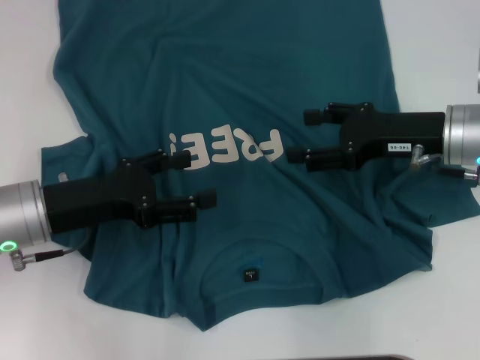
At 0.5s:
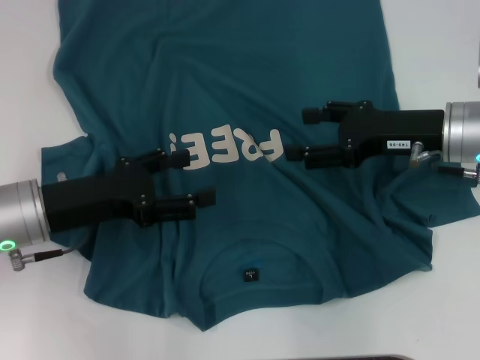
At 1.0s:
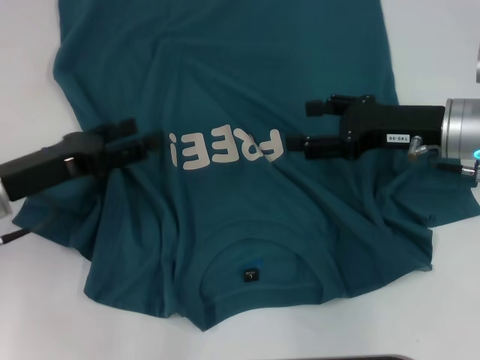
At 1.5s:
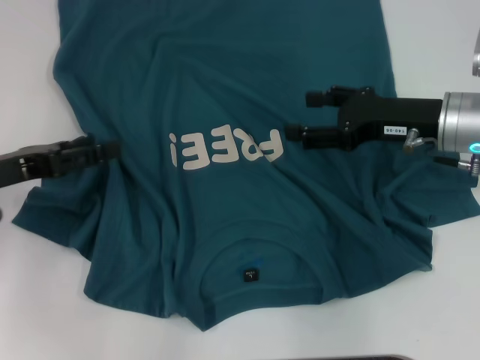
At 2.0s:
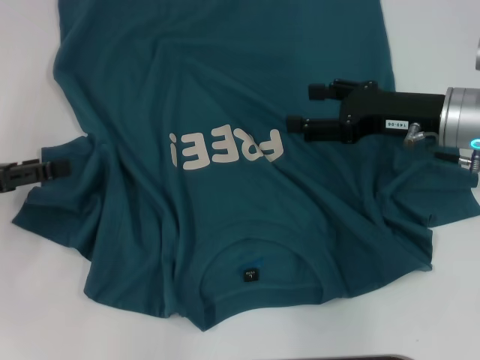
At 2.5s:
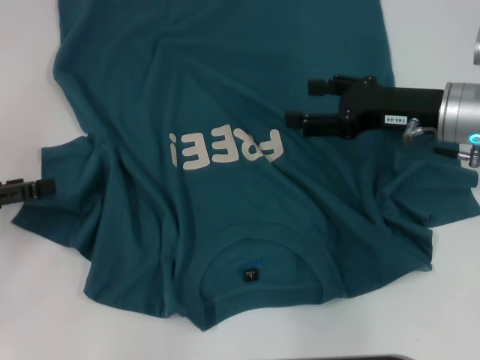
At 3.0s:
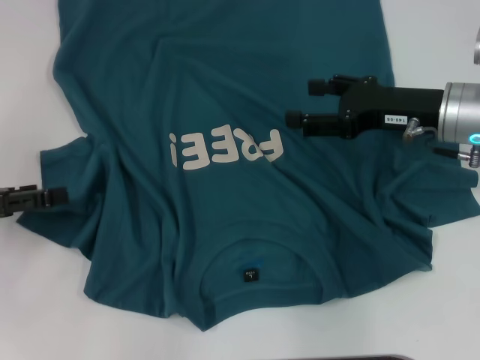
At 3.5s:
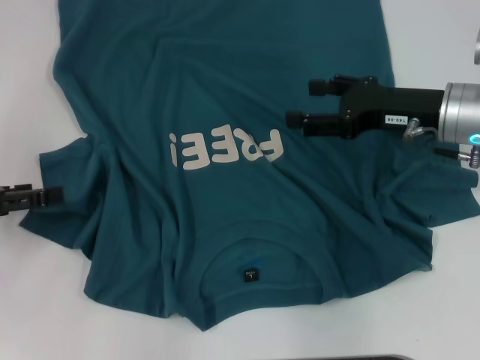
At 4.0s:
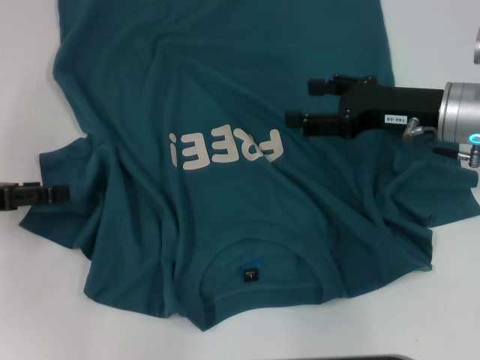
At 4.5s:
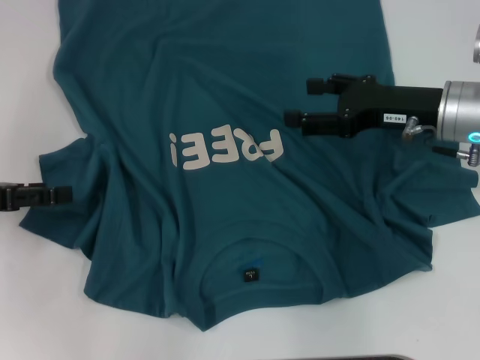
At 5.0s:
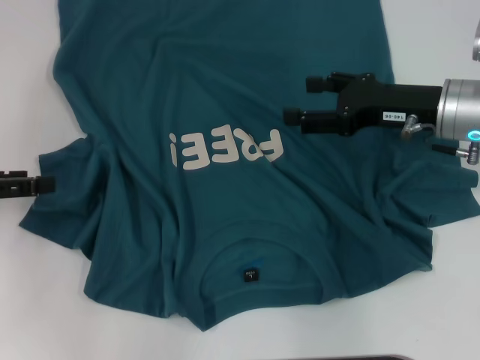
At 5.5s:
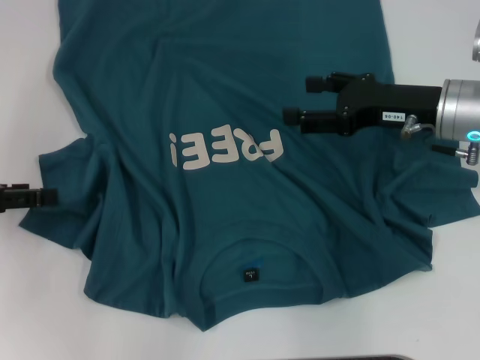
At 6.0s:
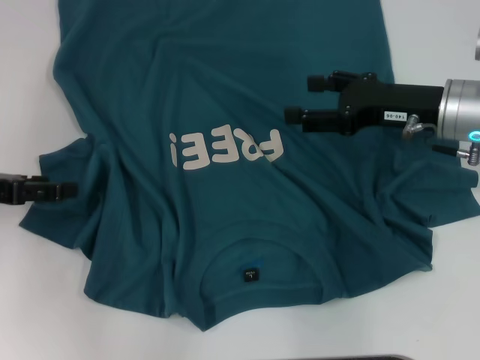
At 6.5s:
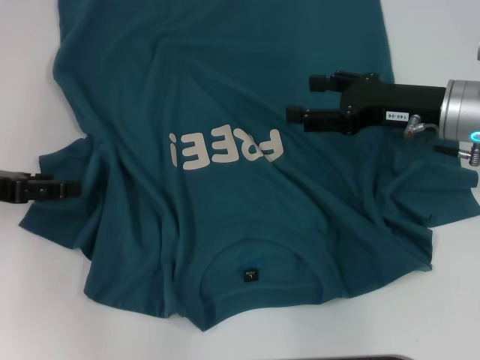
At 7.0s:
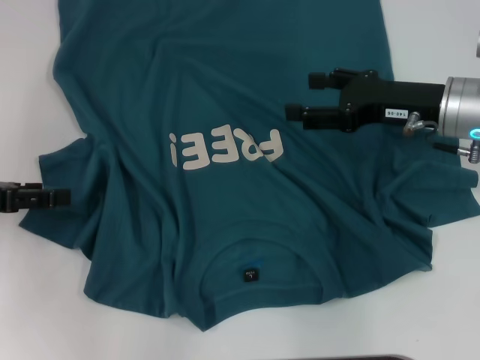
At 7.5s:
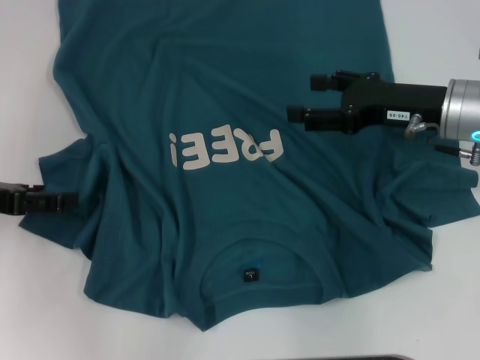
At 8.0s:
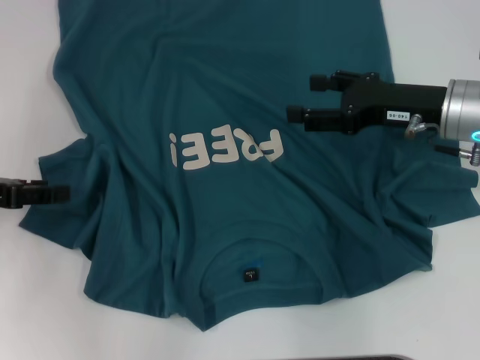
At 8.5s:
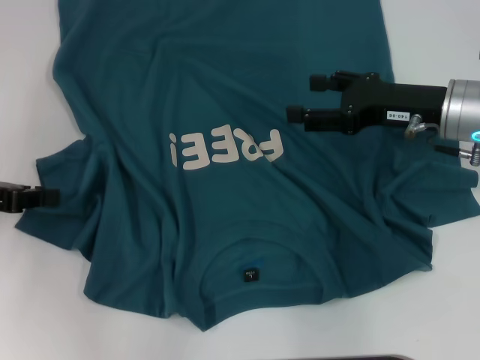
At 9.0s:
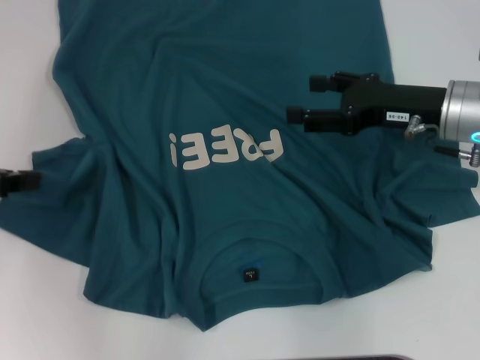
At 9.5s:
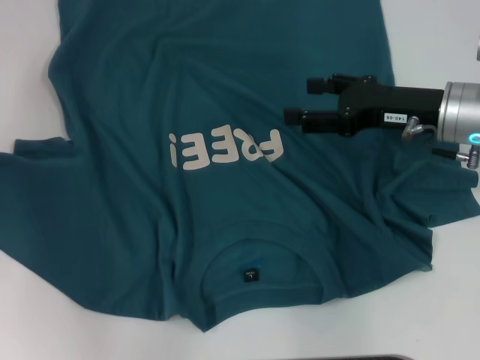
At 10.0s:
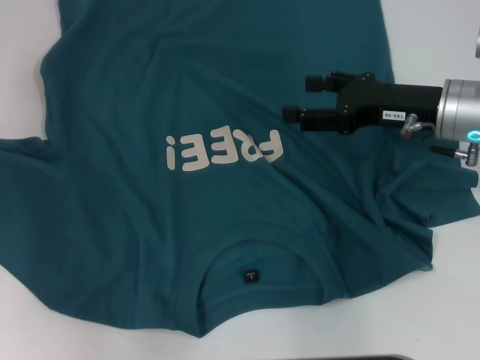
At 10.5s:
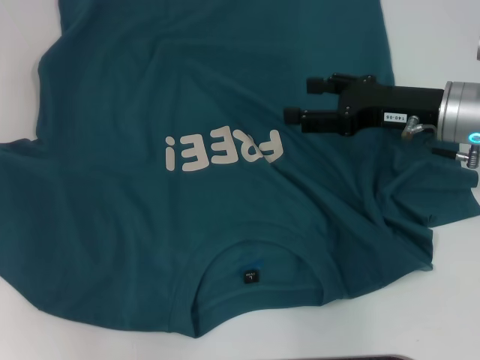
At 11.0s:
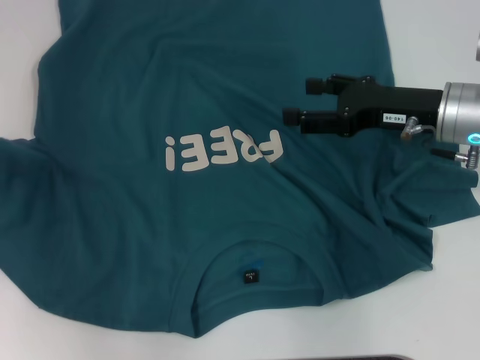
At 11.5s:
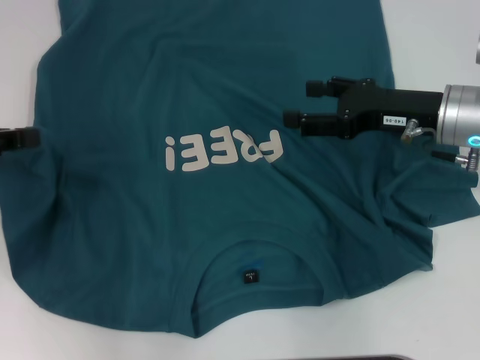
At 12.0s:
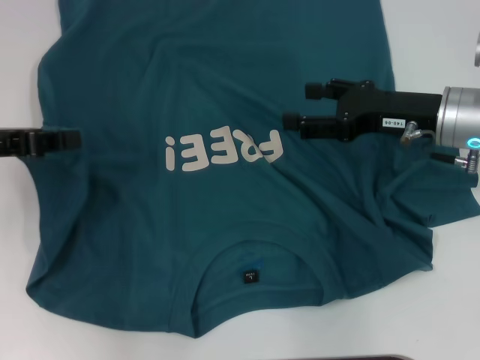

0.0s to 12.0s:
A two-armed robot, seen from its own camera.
0.0s to 2.0s: The left gripper heads to the left, covering approximately 10 cm.
2.0s to 6.0s: There are only small adjustments of the grippers.
6.0s to 8.0s: The two grippers keep their place.
8.0s to 10.0s: The left gripper changes place by roughly 5 cm, and closes.
10.0s to 12.0s: The left gripper shifts roughly 10 cm to the right.

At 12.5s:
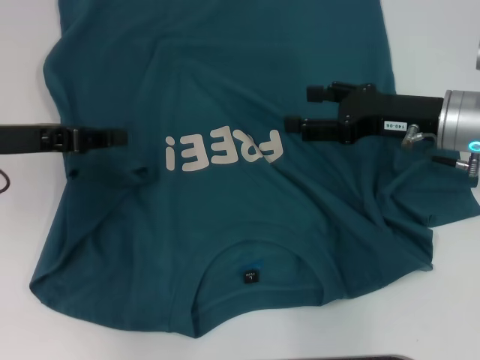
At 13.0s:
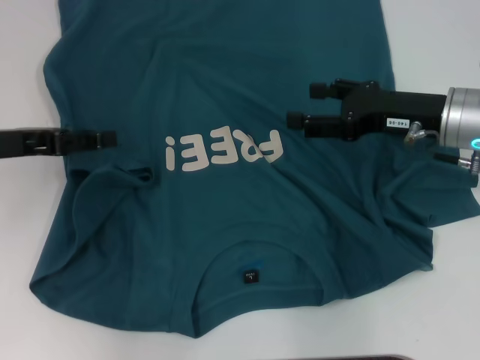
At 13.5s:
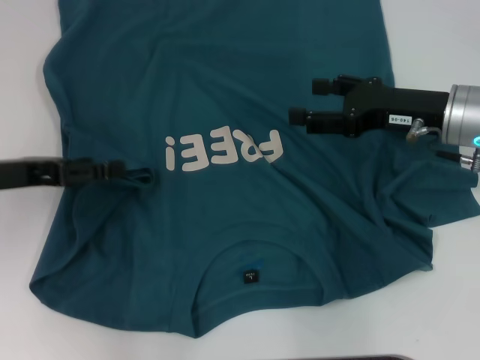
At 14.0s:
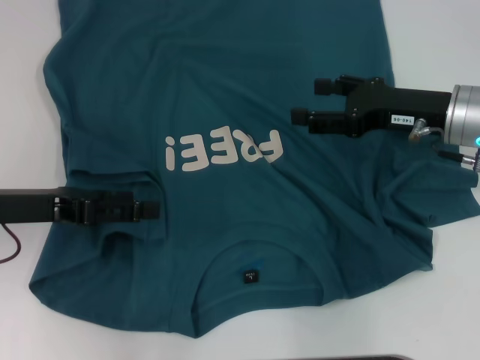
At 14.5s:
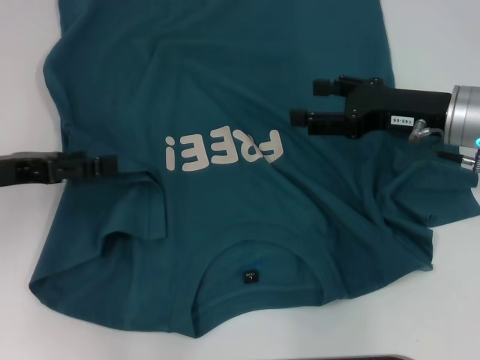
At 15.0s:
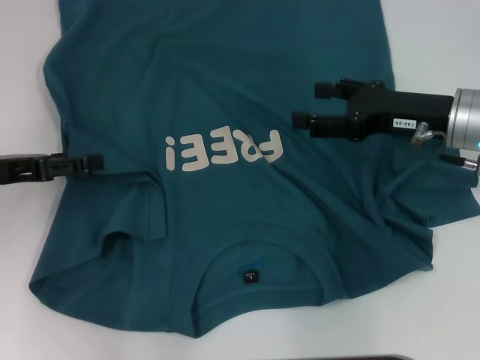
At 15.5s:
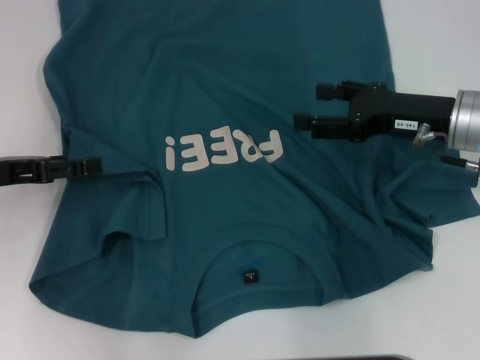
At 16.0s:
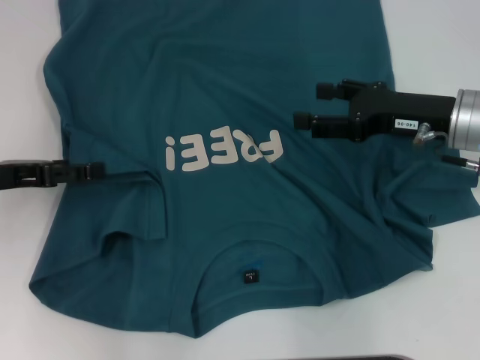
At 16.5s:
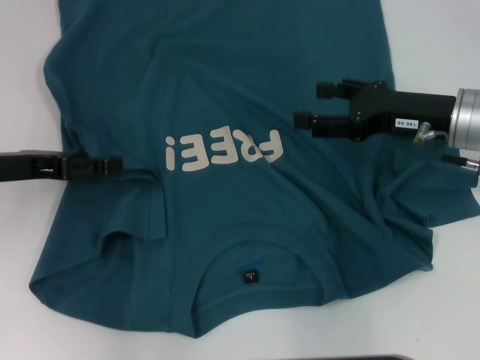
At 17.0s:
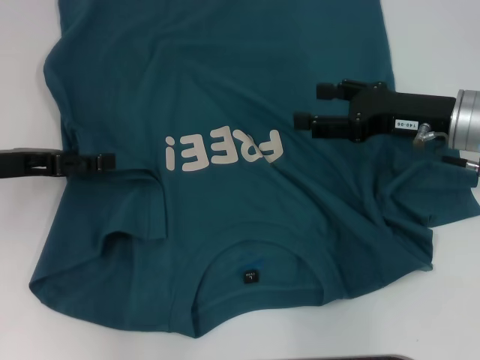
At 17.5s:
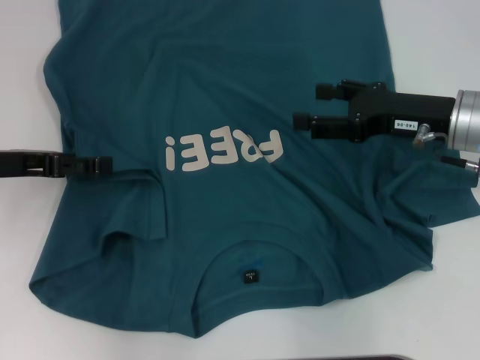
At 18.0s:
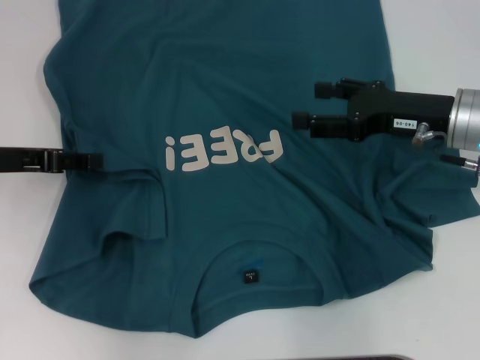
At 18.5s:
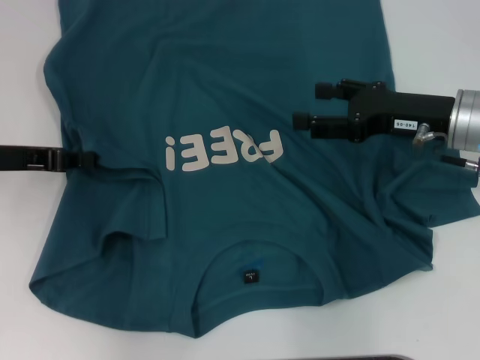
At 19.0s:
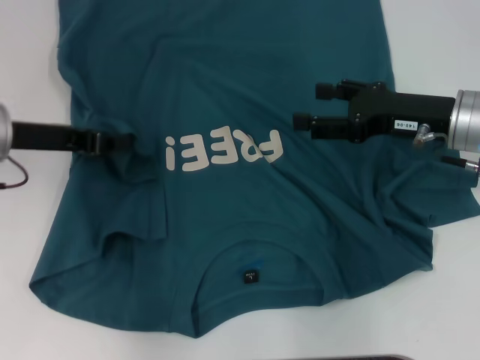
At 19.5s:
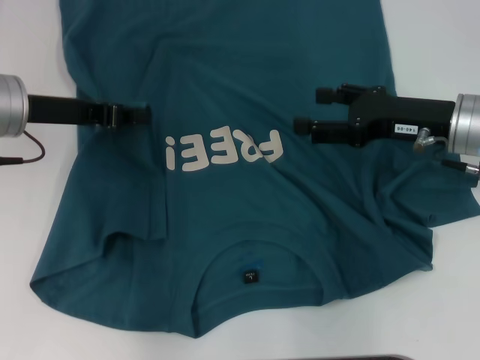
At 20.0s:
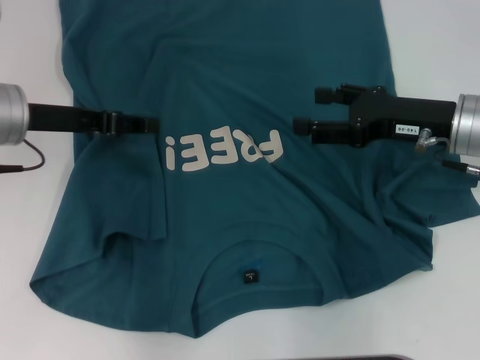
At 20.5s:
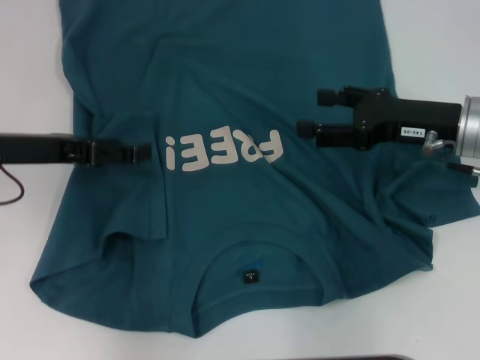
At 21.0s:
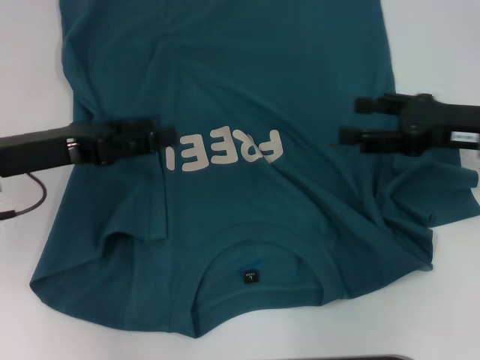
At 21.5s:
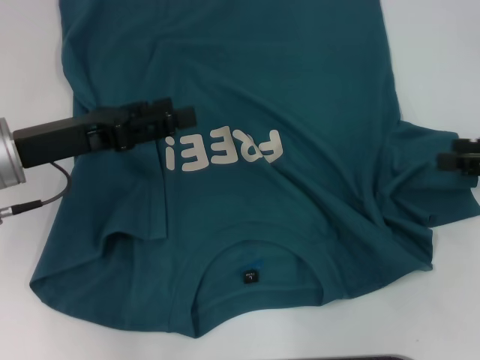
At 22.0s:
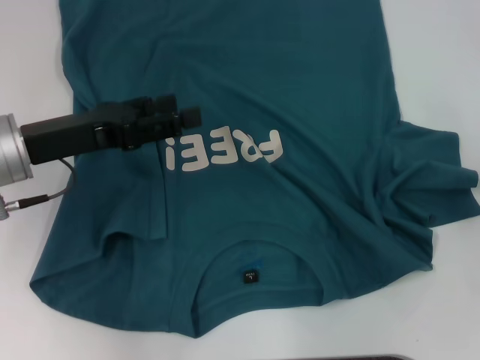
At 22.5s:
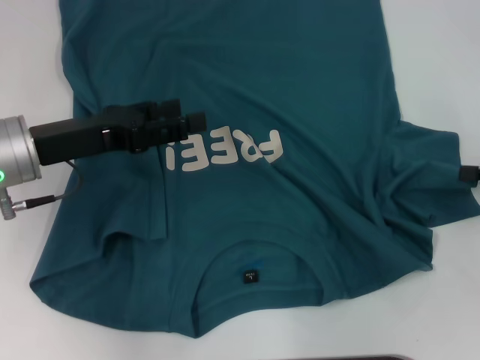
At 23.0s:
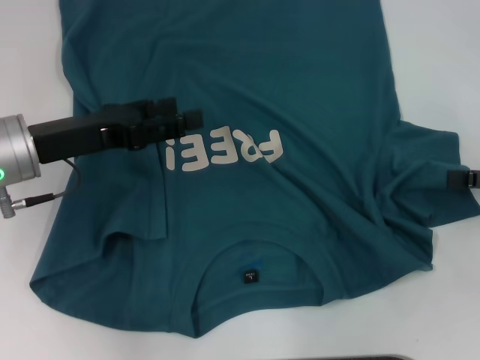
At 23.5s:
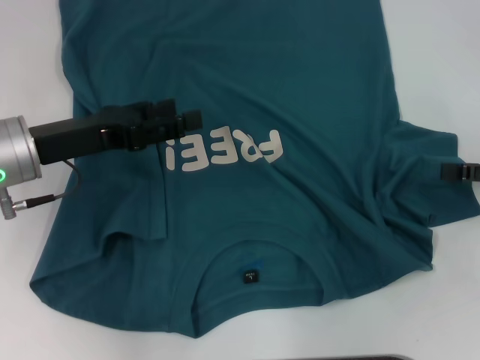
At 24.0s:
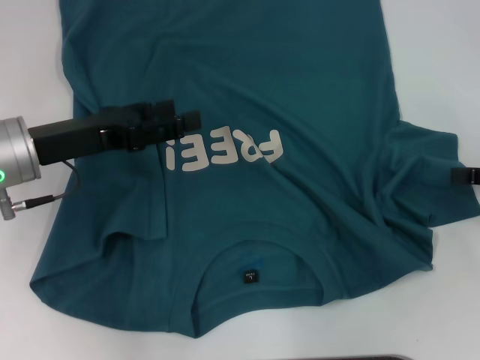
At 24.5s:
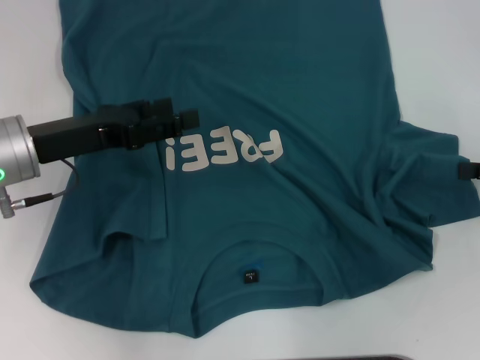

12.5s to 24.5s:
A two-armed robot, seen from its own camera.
Step, 12.5s to 20.5s: Fold the bottom left sleeve with your left hand.
12.5s to 14.5s: The left gripper opens up.
14.5s to 16.5s: The grippers make only small movements.
16.5s to 18.5s: The left gripper closes.
18.5s to 20.5s: The left gripper opens up.
20.5s to 22.5s: The right gripper shifts some 15 cm to the right and backward.

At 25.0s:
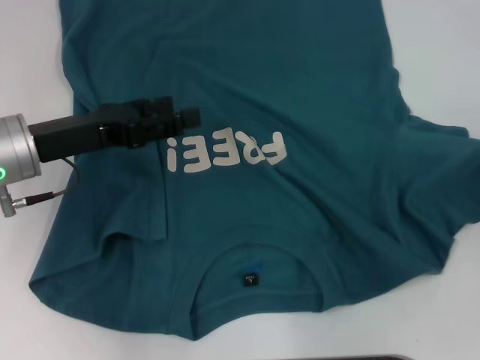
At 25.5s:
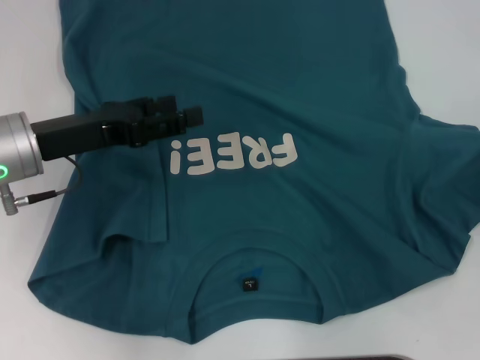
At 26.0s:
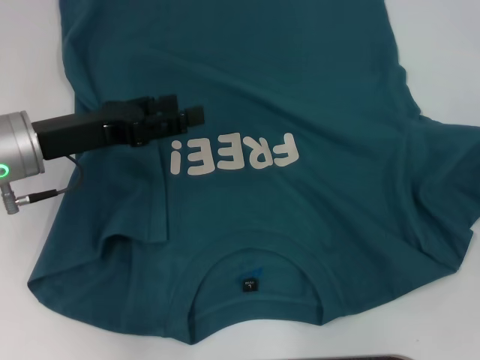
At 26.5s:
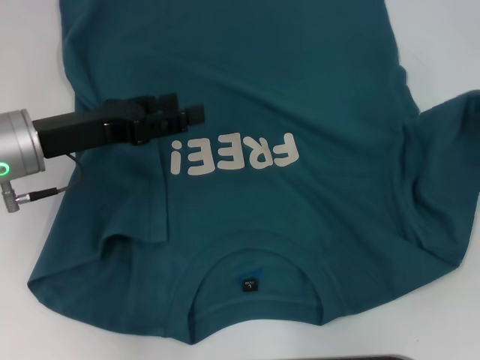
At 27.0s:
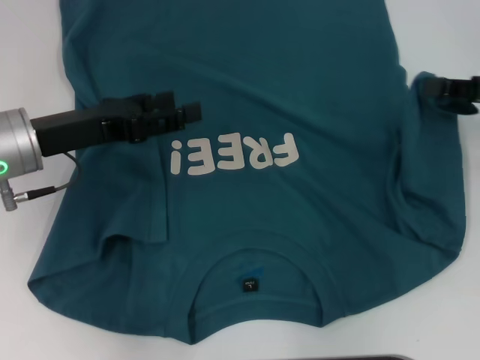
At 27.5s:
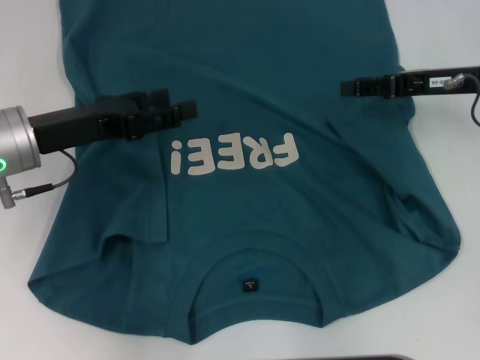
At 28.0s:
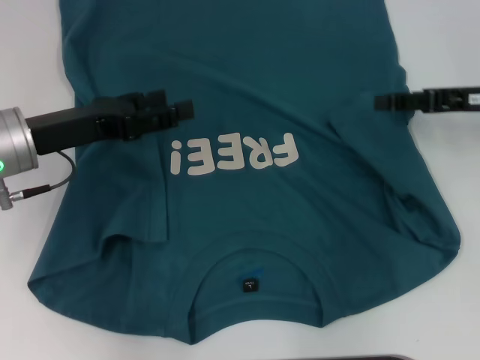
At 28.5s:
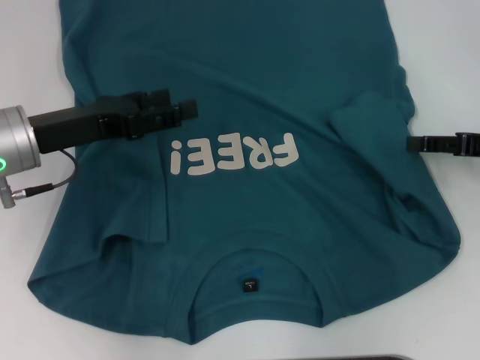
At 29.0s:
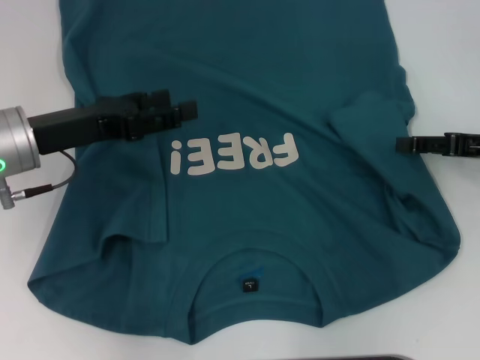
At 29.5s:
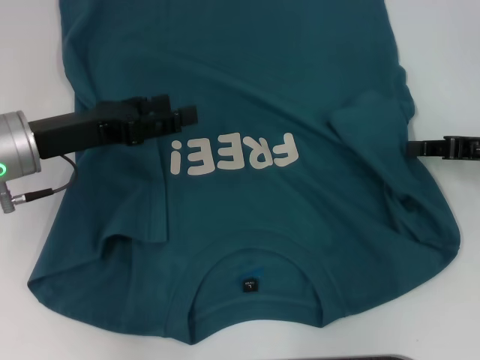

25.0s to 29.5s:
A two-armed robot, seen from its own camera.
25.0s to 27.0s: The right gripper moves forward and to the left, roughly 10 cm.
27.0s to 29.5s: The right gripper changes place by some 5 cm.
